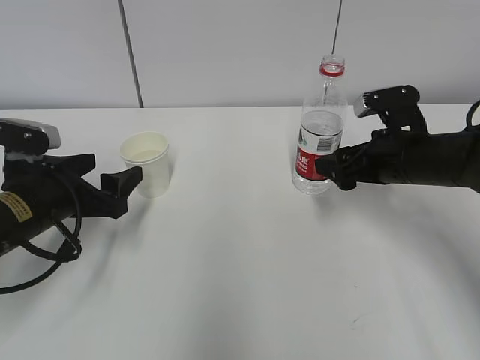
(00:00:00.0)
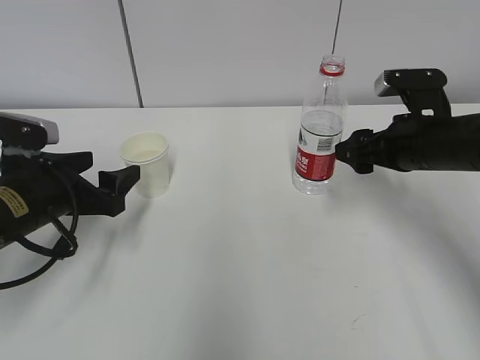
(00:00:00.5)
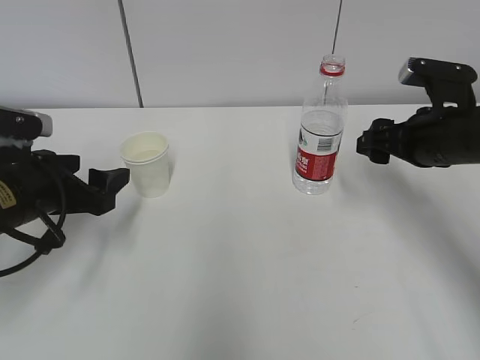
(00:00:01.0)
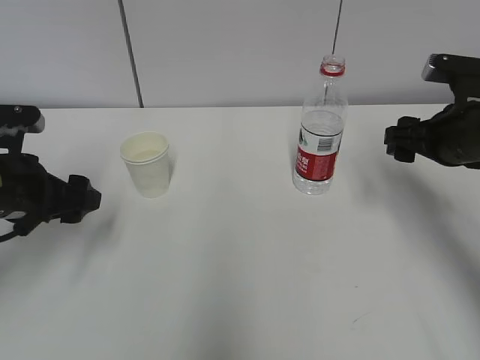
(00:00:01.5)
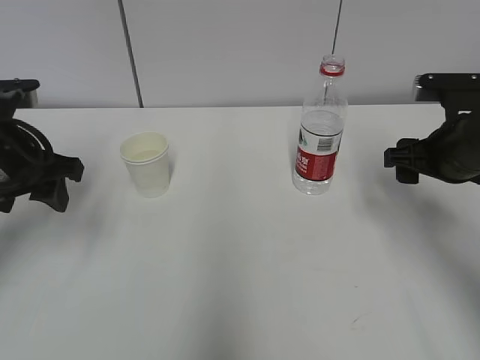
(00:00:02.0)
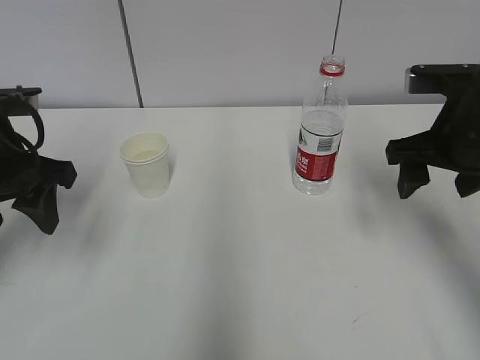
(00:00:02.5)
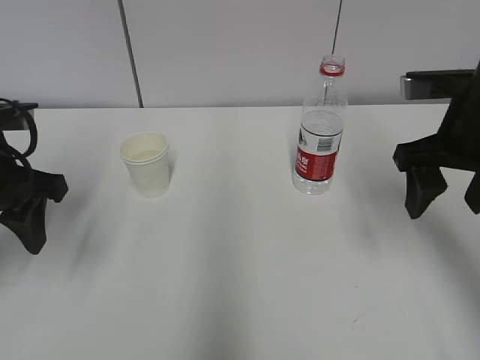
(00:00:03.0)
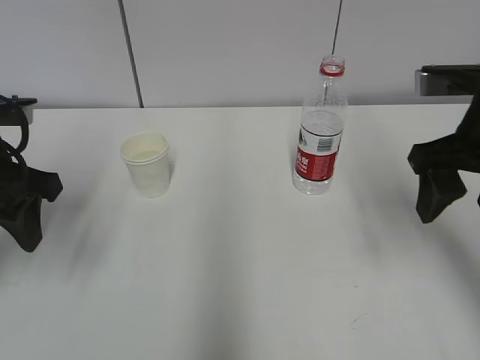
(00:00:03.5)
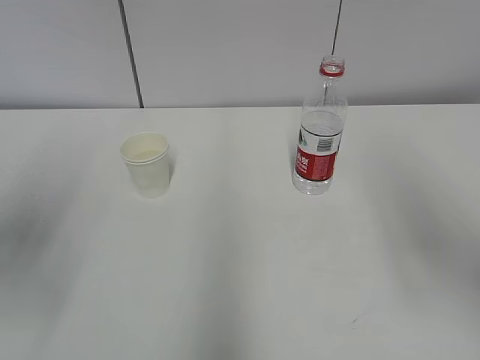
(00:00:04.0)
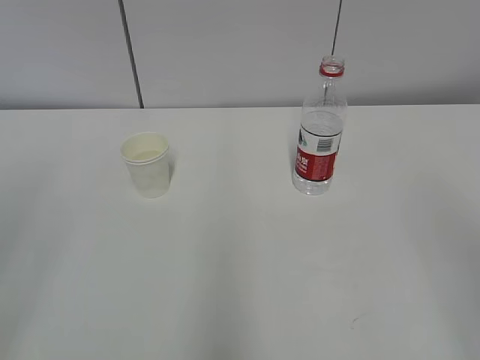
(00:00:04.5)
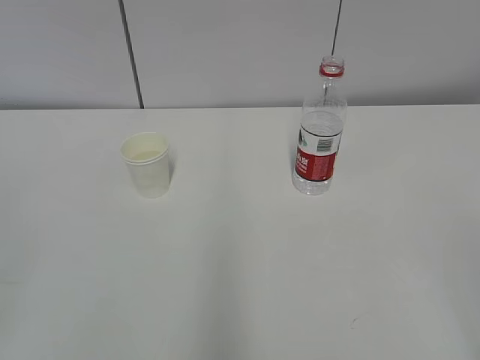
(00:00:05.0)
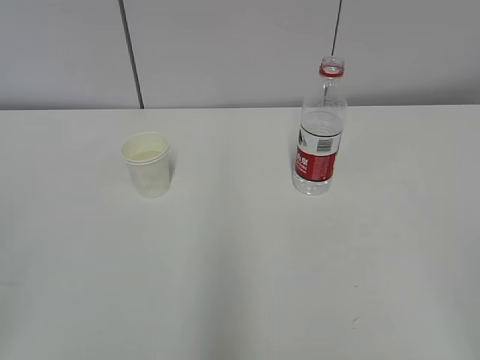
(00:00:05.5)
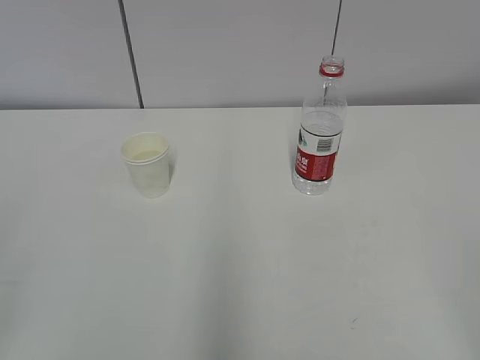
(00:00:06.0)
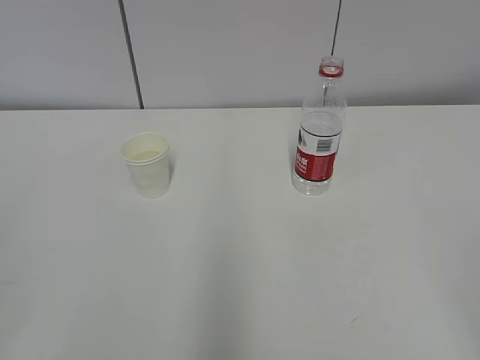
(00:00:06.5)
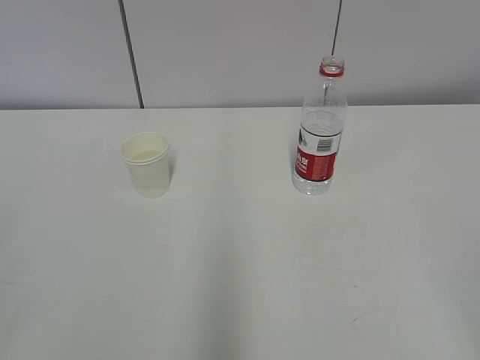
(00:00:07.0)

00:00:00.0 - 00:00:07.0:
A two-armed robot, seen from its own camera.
00:00:00.0 - 00:00:02.0: The right gripper changes place by some 5 cm, while the left gripper heads upward, covering some 10 cm.
00:00:02.0 - 00:00:03.5: The right gripper goes approximately 10 cm upward.
00:00:03.5 - 00:00:05.0: The grippers both shift backward by approximately 30 cm.
